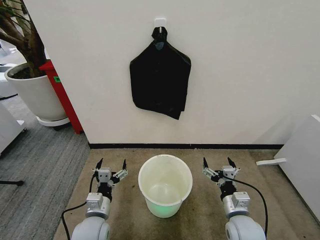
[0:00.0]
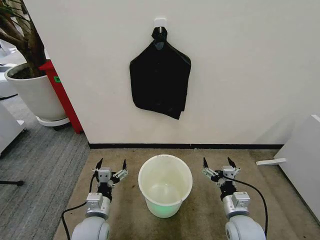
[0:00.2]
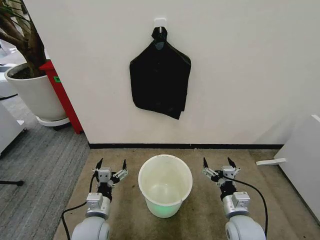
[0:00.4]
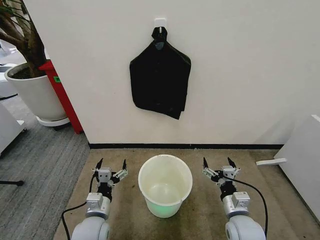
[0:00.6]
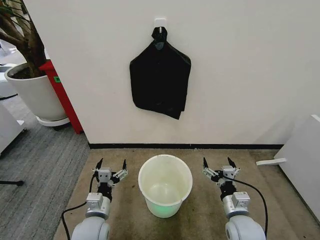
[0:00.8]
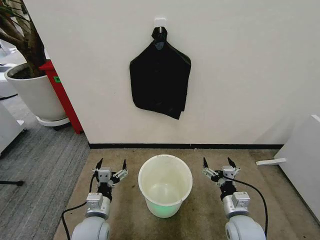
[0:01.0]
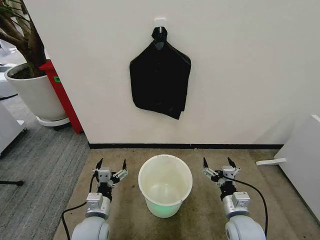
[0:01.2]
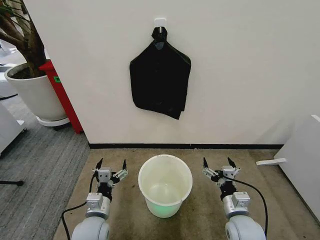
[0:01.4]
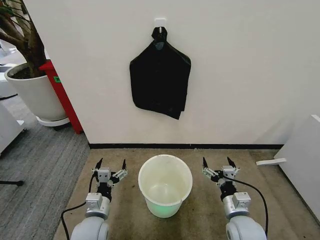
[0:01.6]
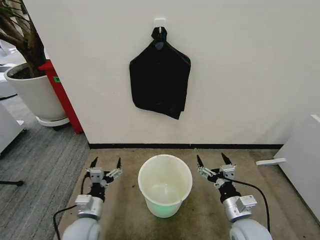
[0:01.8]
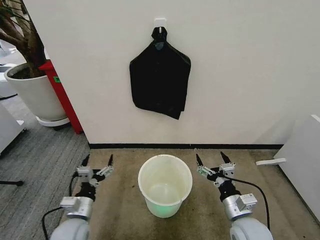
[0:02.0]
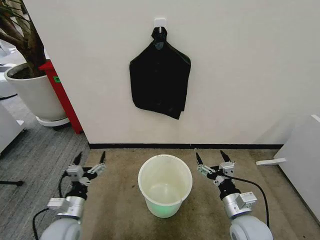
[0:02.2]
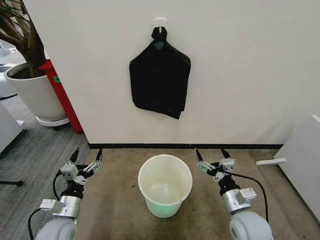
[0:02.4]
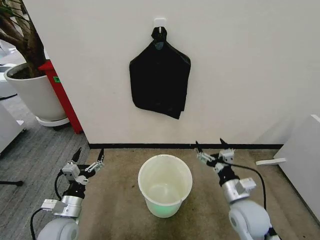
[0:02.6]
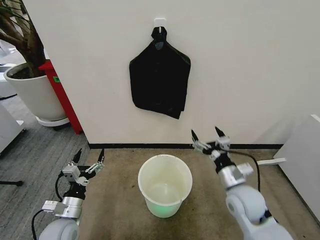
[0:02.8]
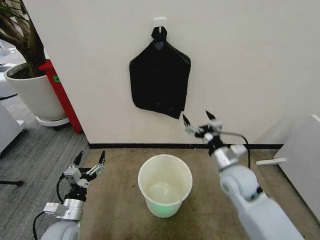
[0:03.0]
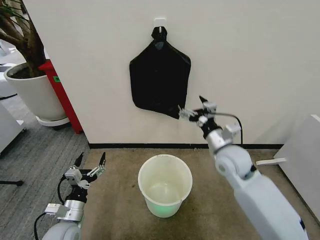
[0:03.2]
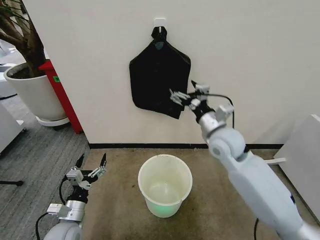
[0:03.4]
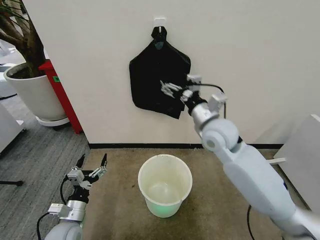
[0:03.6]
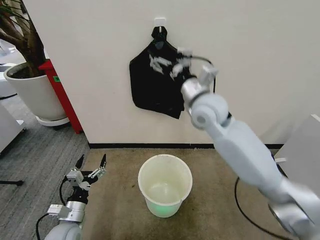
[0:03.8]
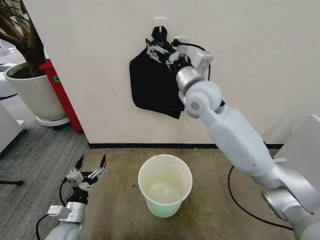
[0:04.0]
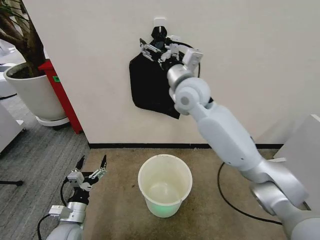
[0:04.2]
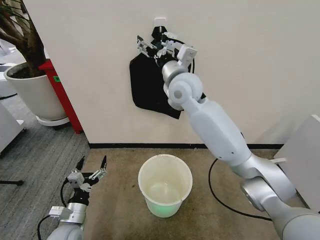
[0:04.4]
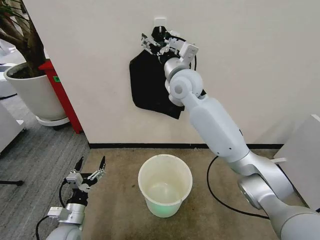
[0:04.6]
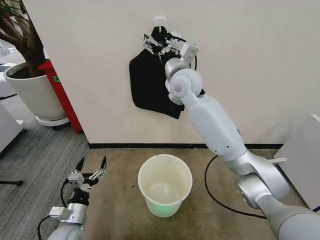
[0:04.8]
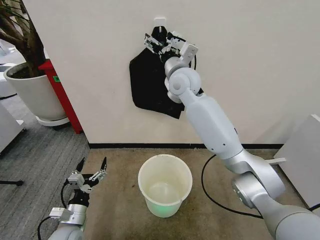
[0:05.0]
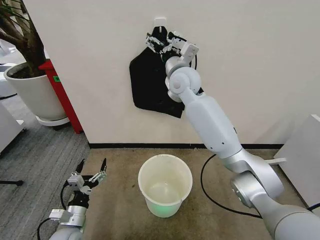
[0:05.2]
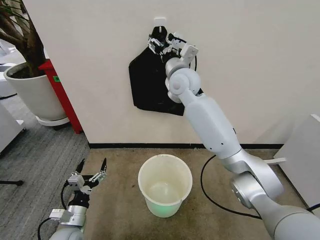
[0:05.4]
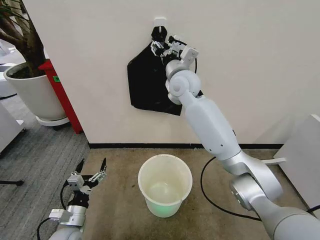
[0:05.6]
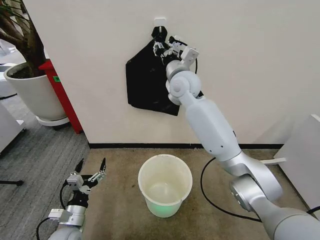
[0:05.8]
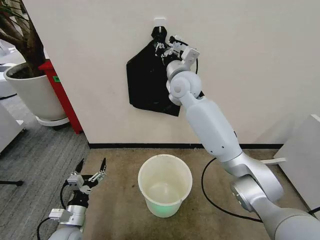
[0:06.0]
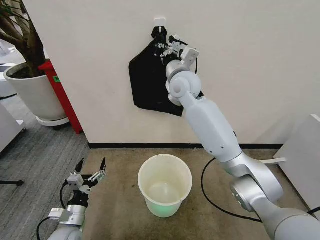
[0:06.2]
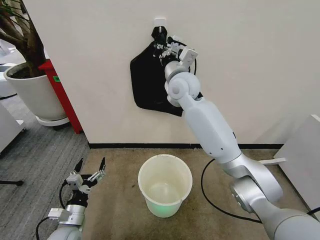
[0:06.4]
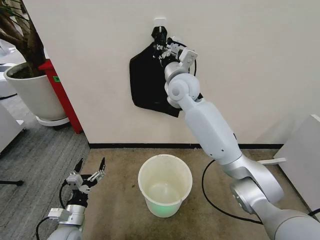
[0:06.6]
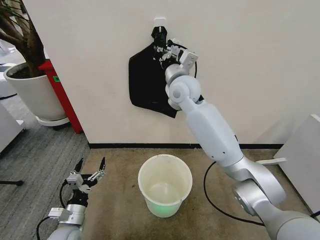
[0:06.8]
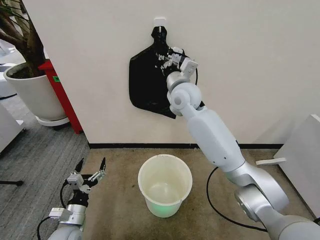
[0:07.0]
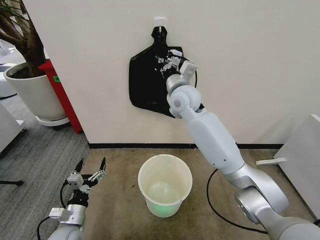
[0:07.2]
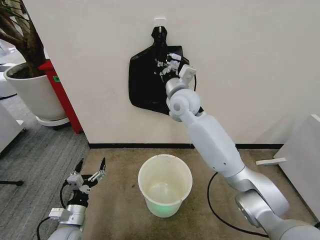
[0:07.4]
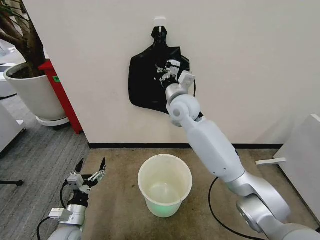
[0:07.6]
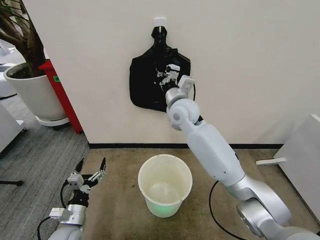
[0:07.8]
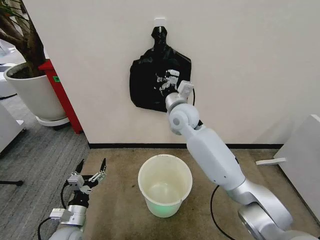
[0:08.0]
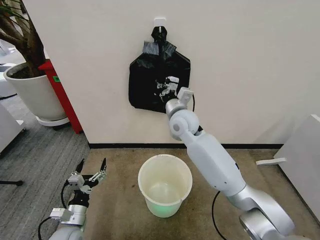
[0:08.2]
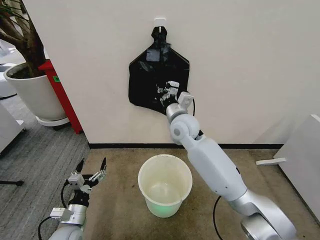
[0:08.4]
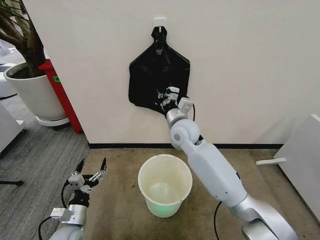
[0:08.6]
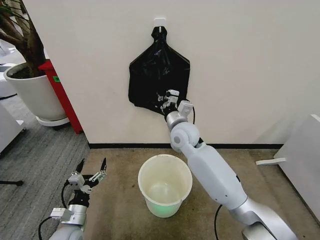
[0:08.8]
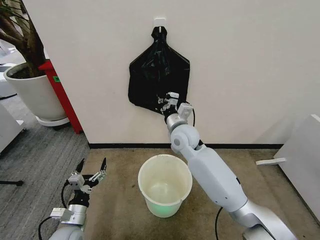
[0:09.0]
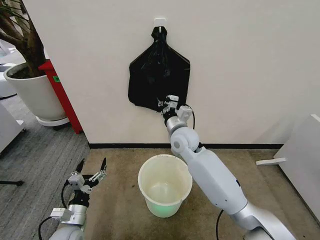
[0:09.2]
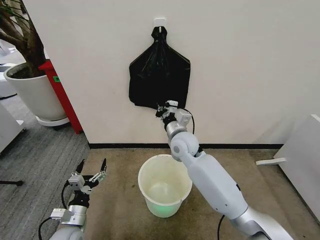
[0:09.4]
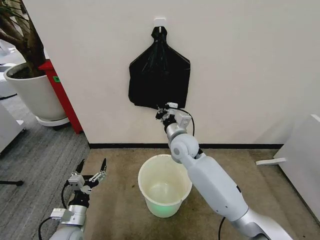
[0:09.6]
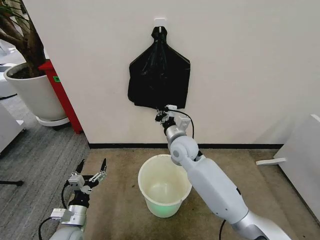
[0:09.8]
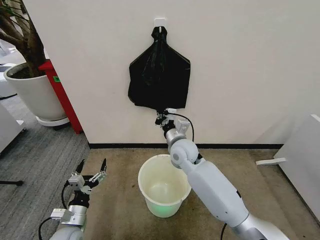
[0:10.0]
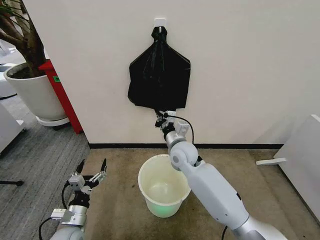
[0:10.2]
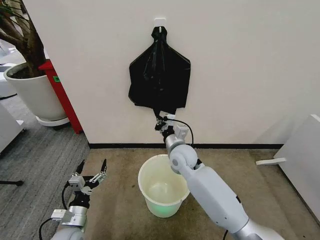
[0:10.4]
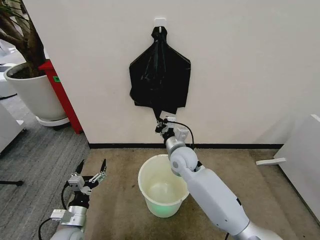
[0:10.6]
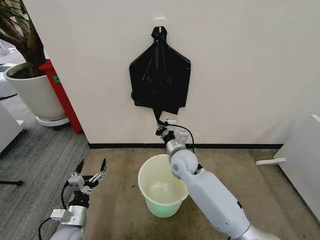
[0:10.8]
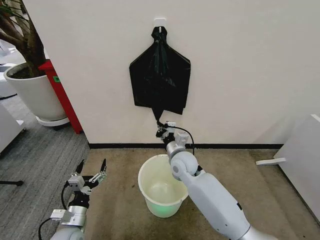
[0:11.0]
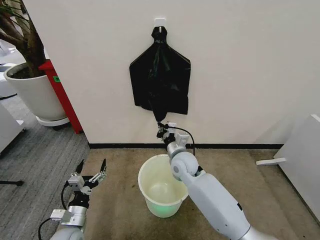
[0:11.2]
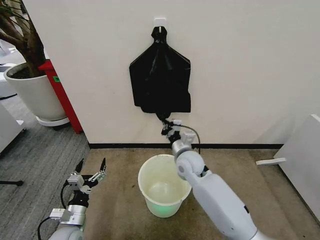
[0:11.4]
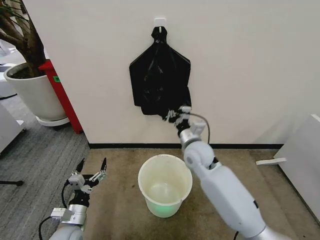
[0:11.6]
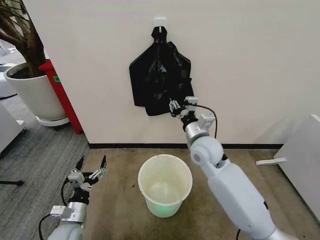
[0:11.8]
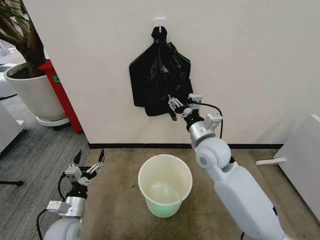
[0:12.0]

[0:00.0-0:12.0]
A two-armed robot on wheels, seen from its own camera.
Task of the whole recording: Place the garbage bag over the trash bin.
0:01.6 to 0:03.0: The right gripper travels forward and upward by some 15 cm. The left gripper moves to the left, some 10 cm.
0:03.0 to 0:04.4: The right gripper is displaced upward, forward and to the left by about 30 cm.
0:04.4 to 0:06.0: The right gripper closes.
0:06.0 to 0:07.6: The right gripper moves downward, approximately 5 cm.
0:07.6 to 0:09.0: The right gripper shifts approximately 10 cm downward.
0:09.0 to 0:10.4: The right gripper goes roughly 5 cm downward.
0:10.4 to 0:12.0: The right gripper heads upward and to the right, covering approximately 10 cm, and opens.

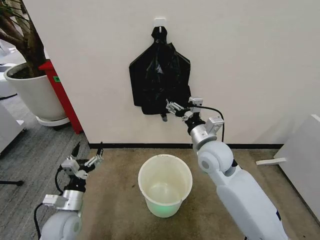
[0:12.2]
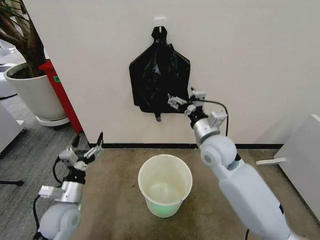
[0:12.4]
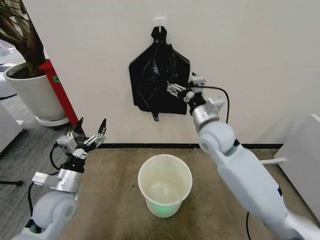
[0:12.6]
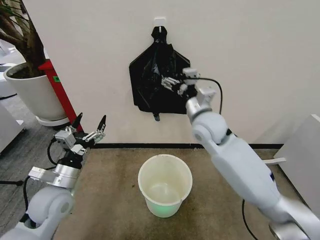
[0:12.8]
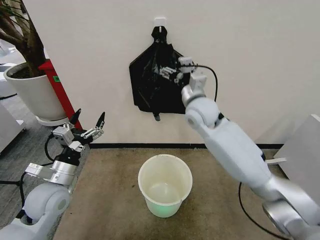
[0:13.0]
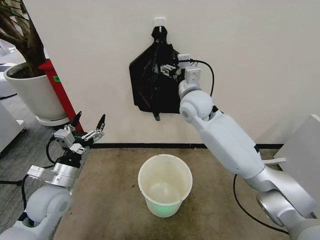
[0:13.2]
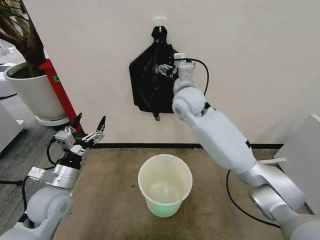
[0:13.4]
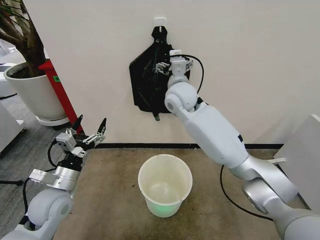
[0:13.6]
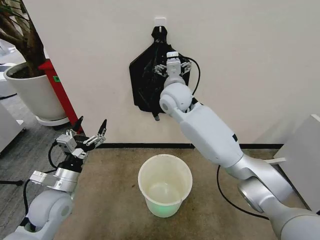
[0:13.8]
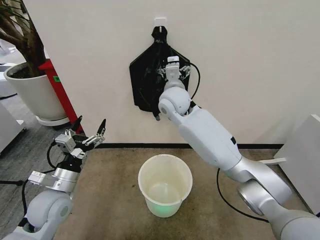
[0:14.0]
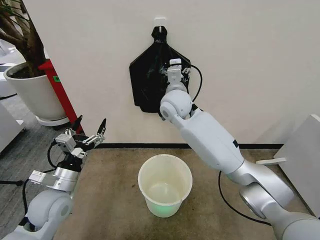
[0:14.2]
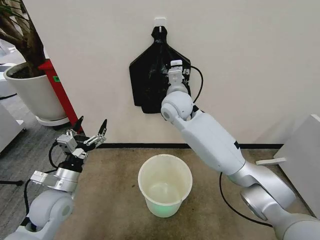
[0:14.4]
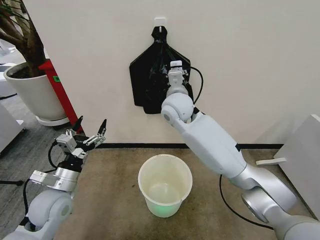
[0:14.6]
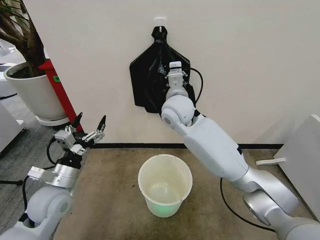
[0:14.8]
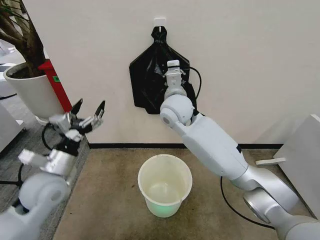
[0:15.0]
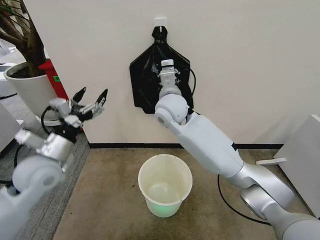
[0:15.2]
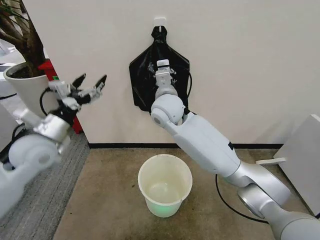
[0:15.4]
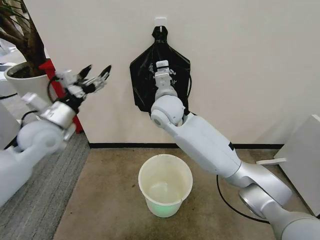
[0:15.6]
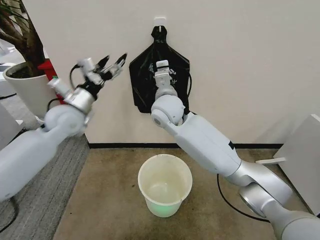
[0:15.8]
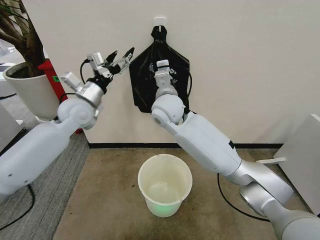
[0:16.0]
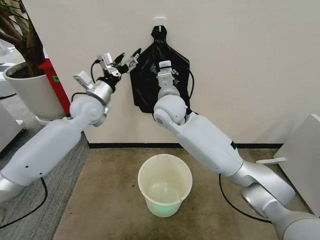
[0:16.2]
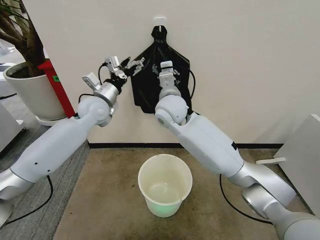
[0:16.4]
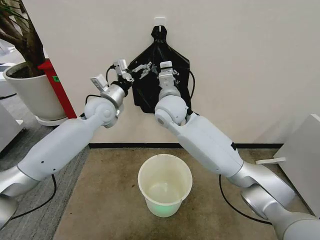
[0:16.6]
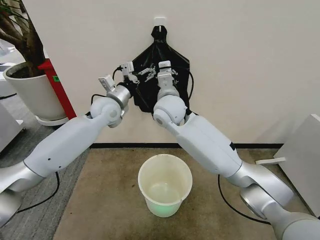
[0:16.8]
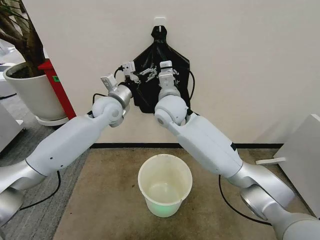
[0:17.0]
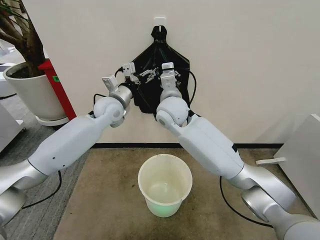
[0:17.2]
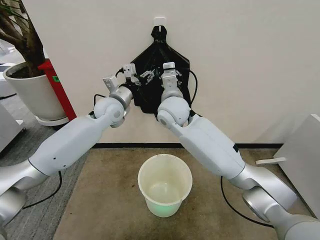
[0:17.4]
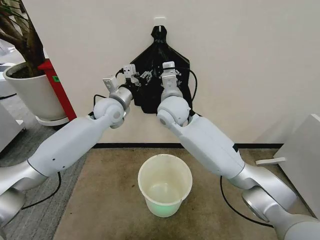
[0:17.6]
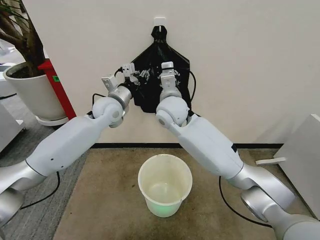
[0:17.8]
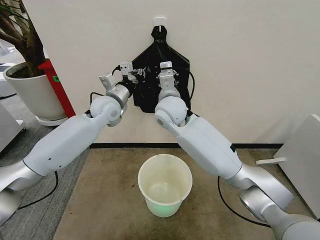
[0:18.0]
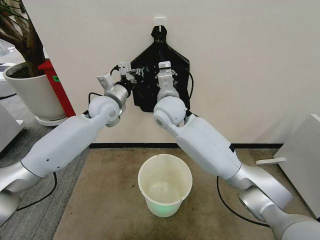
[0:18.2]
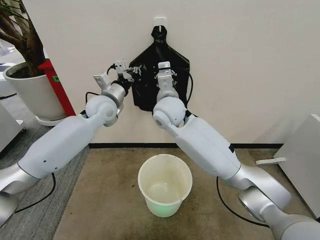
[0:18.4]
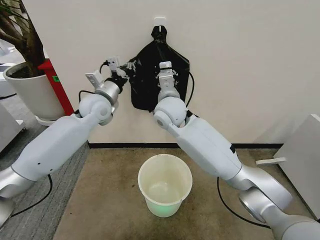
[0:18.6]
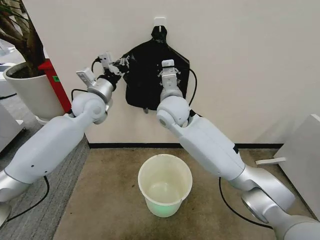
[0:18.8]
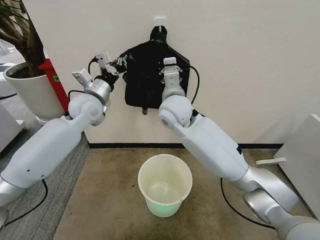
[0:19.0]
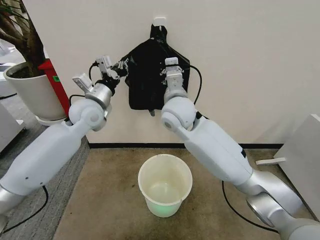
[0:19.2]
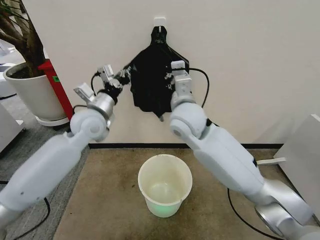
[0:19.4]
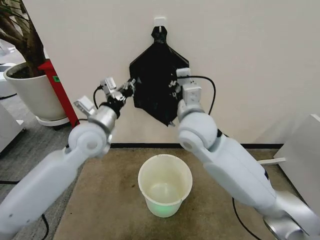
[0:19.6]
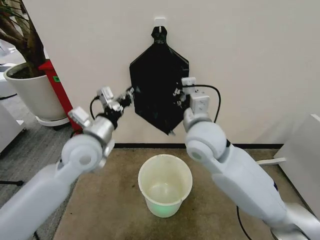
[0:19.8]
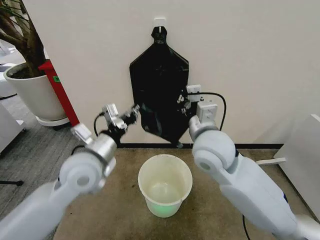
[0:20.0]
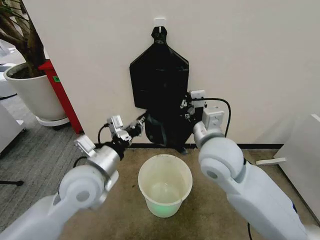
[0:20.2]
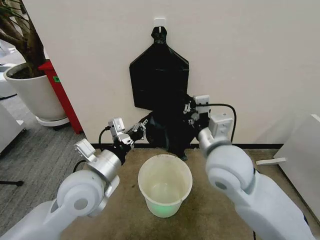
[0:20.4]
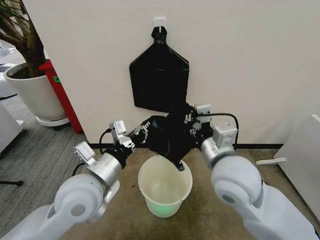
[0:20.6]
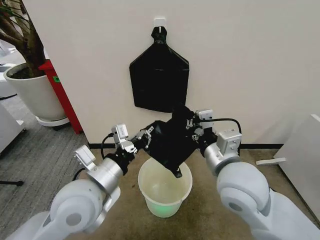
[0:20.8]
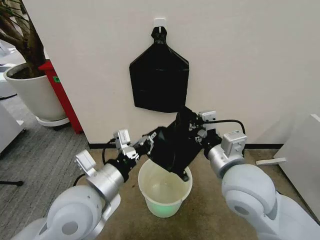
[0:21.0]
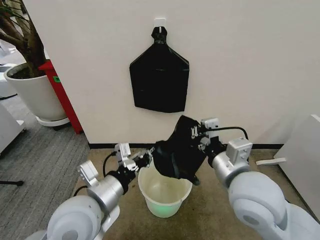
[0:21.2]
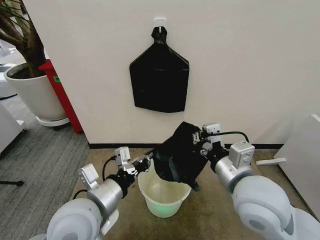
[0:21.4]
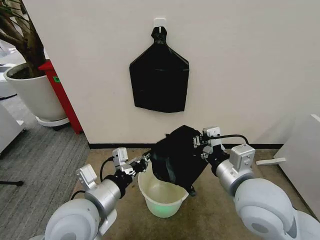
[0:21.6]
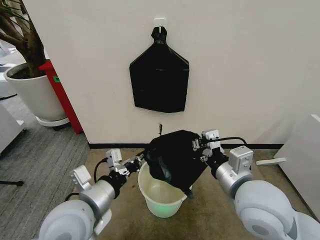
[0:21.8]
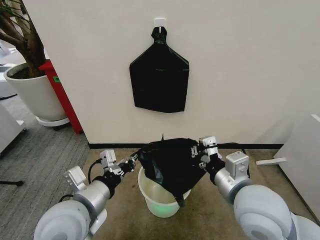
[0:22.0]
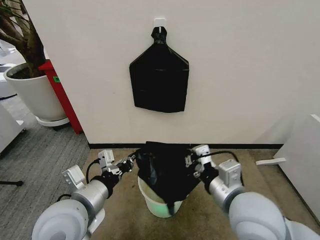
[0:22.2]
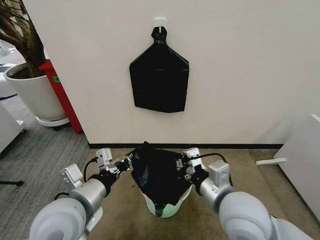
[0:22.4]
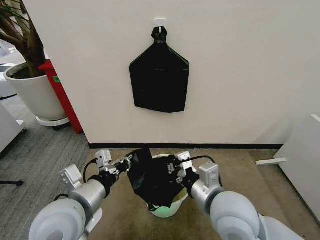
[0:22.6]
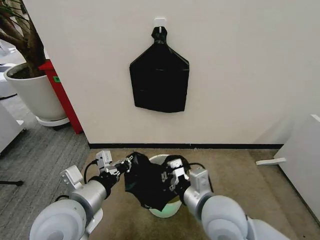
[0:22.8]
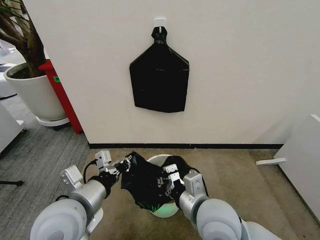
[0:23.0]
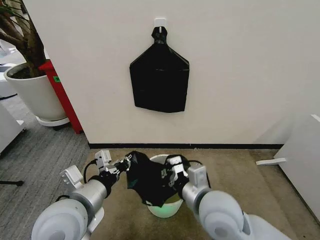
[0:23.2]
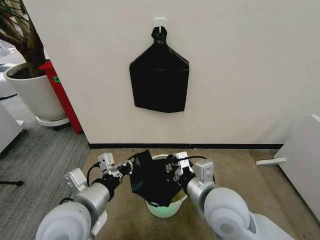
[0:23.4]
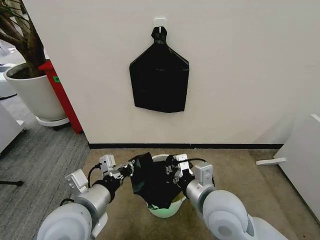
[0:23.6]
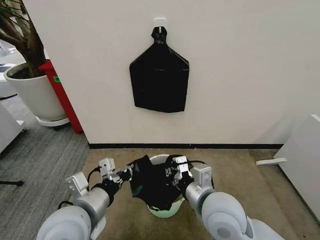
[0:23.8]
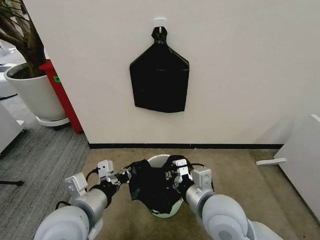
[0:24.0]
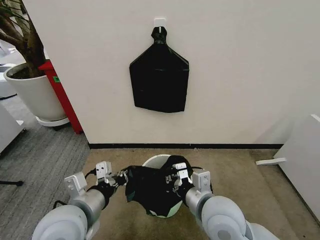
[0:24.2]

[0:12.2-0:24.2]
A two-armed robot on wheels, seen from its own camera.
Task of the whole recording: Place the garbage bag over the trash bin.
0:12.2 to 0:13.8: The right gripper shifts approximately 20 cm forward, upward and to the left. The left gripper moves upward, some 10 cm.
0:13.8 to 0:15.2: The right gripper closes; the left gripper heads upward and forward, covering some 10 cm.
0:15.2 to 0:16.6: The left gripper travels forward and to the right by about 25 cm.
0:16.6 to 0:18.2: The left gripper closes its fingers.
0:18.2 to 0:19.8: The left gripper travels backward by about 15 cm. Meanwhile the right gripper is displaced backward and to the right by roughly 15 cm.
0:19.8 to 0:21.2: The left gripper is displaced backward by approximately 15 cm. The right gripper moves backward and to the right, approximately 15 cm.
0:21.2 to 0:22.6: The right gripper shifts approximately 5 cm downward.
0:22.6 to 0:24.2: The grippers move only a little.
